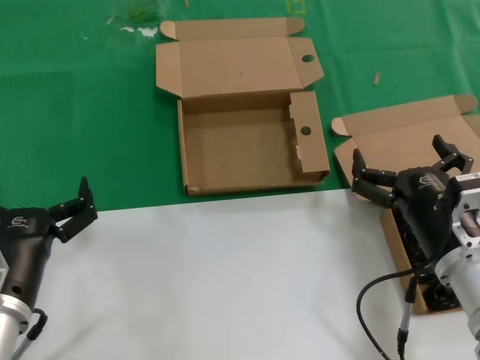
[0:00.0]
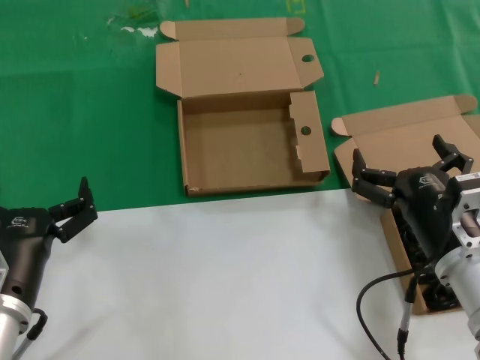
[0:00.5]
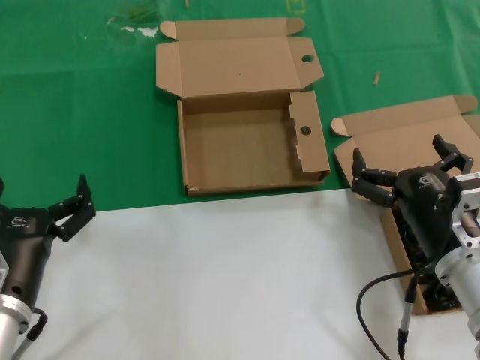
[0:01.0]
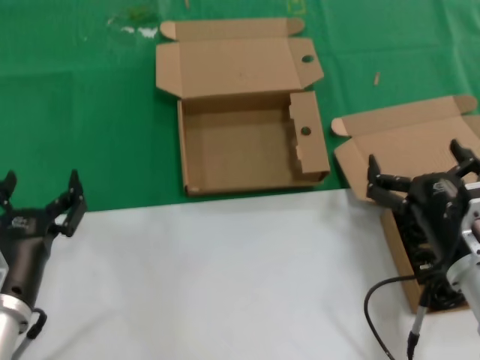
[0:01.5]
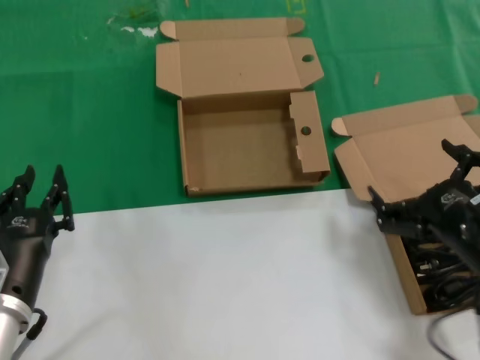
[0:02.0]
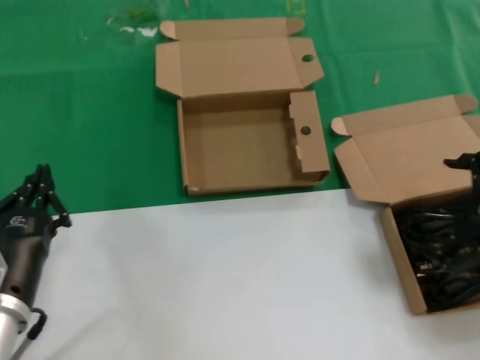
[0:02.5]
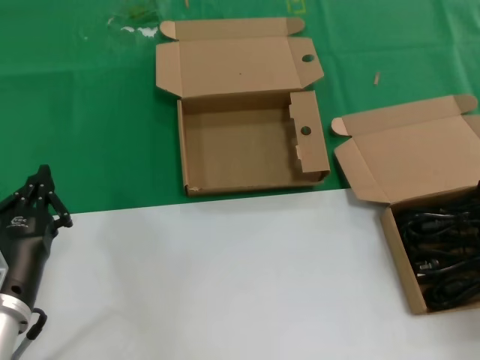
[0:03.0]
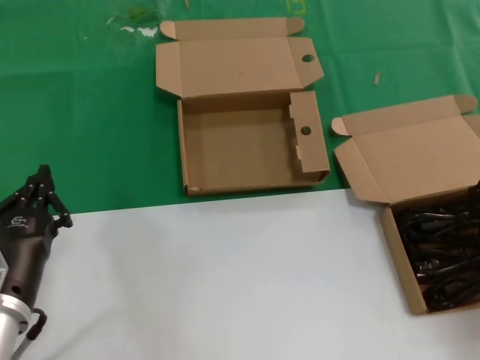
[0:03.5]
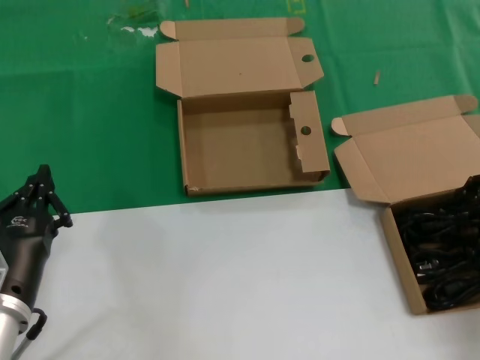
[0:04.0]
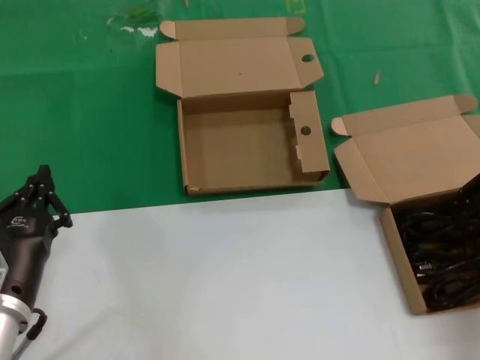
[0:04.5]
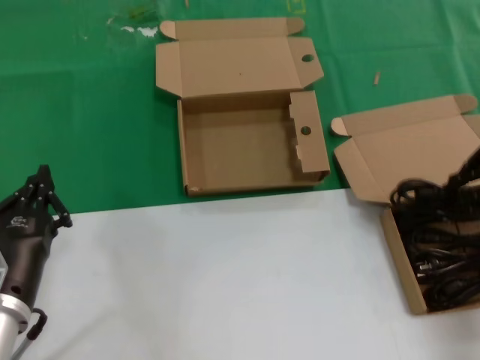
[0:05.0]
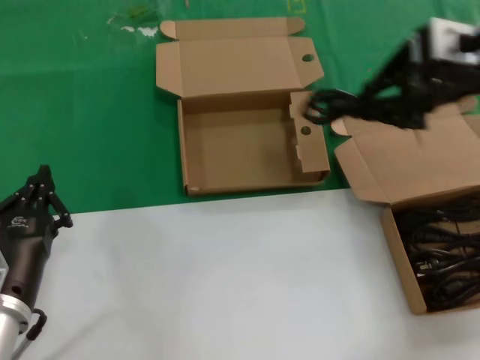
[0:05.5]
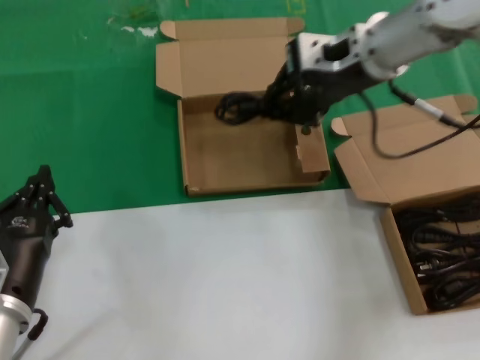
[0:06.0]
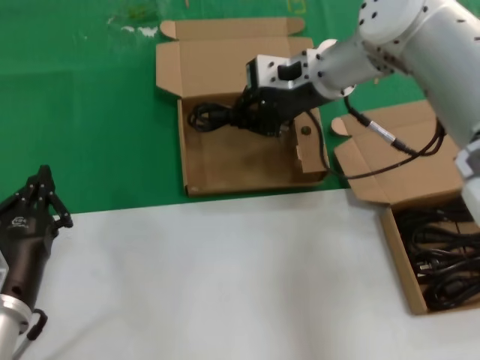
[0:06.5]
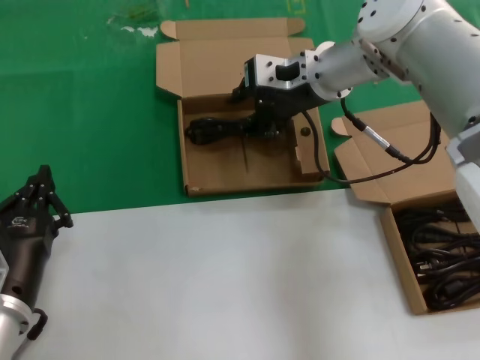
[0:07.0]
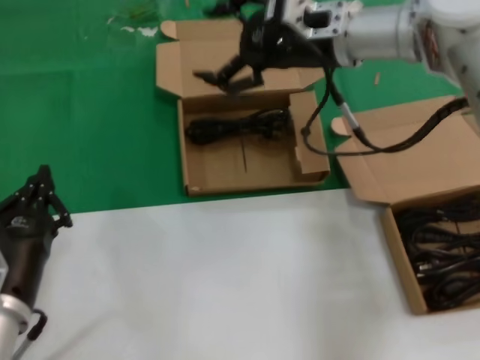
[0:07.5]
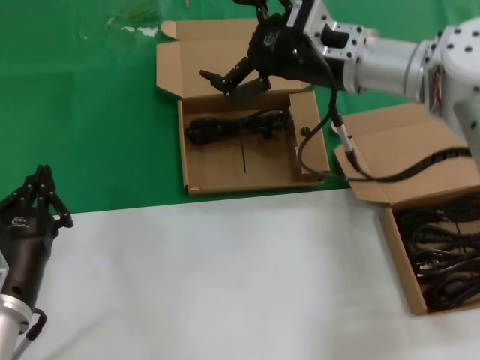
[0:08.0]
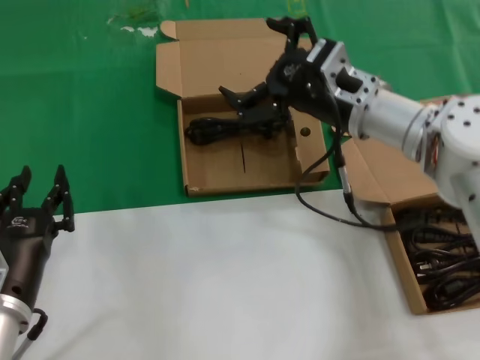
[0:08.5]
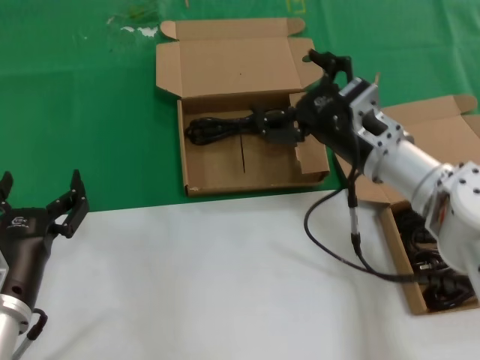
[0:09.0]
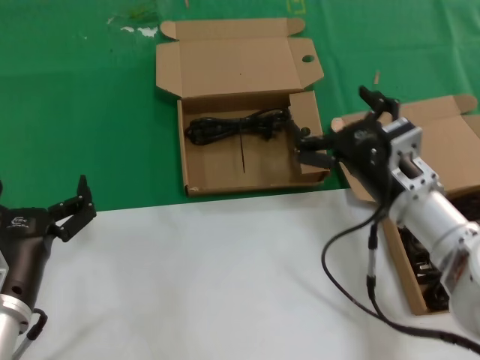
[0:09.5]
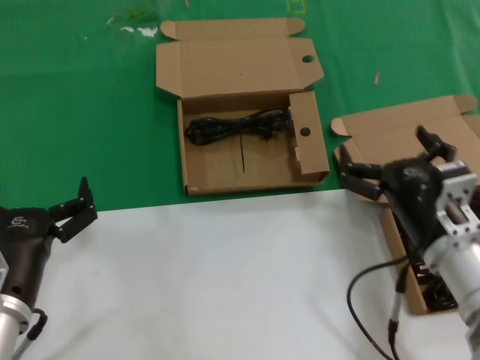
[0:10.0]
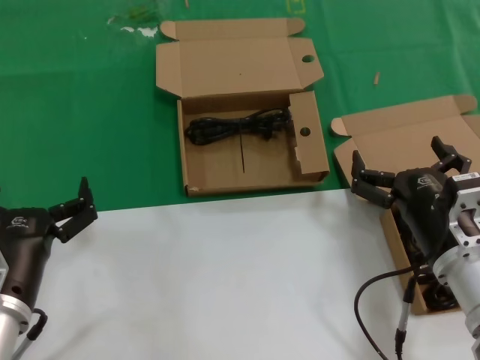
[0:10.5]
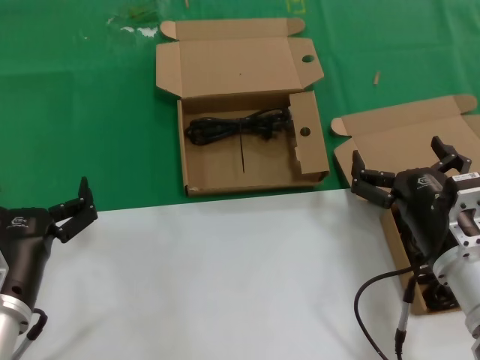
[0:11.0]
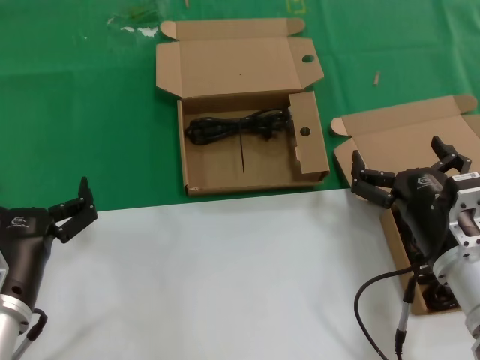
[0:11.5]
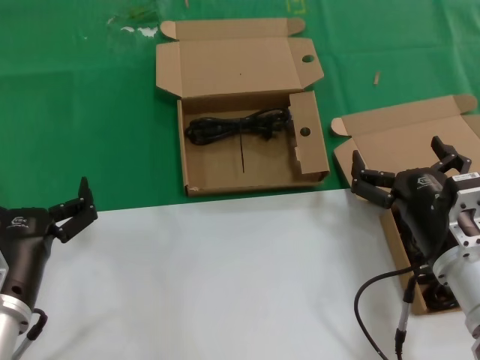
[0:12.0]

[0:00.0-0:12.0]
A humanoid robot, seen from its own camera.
Task of the whole recording: take the parts from the box containing them and put them into an empty box.
Step, 0:00.0 to 0:04.0: Grasp the data cable.
Step, 0:04.5 to 0:07.0: Place the data cable in the another box.
0:00.0 to 0:02.0: The right hand goes about 5 cm to the right.
0:02.0 to 0:04.0: The right hand moves upward, to the right and forward, roughly 20 cm.
0:04.0 to 0:06.0: The right hand shifts about 30 cm to the left, forward and upward.
0:06.0 to 0:08.0: The right hand travels downward by about 5 cm.
0:08.0 to 0:10.0: The right hand shifts approximately 25 cm backward and downward.
0:10.0 to 0:12.0: The hands move only a little.

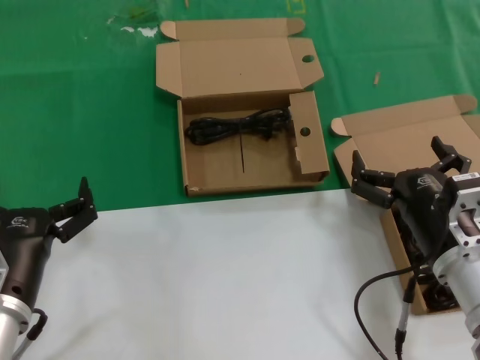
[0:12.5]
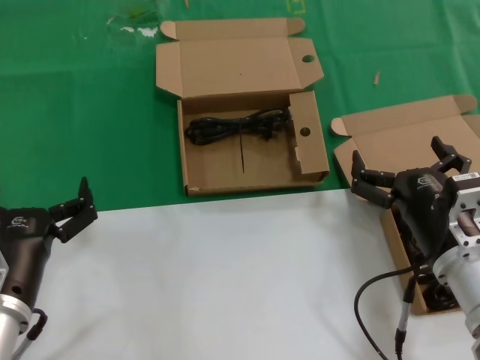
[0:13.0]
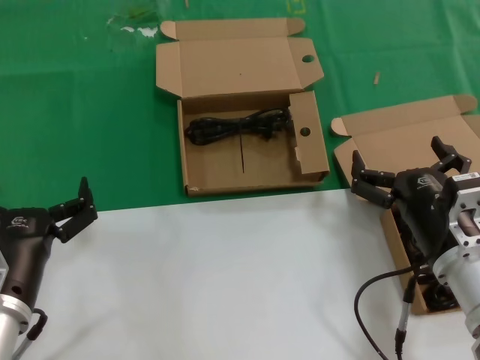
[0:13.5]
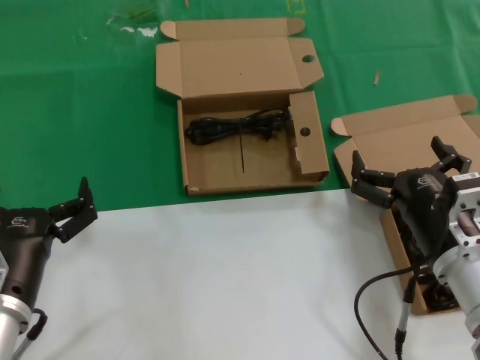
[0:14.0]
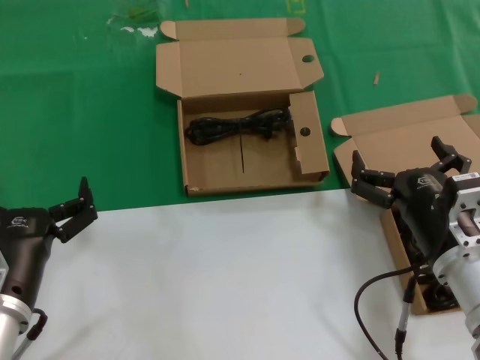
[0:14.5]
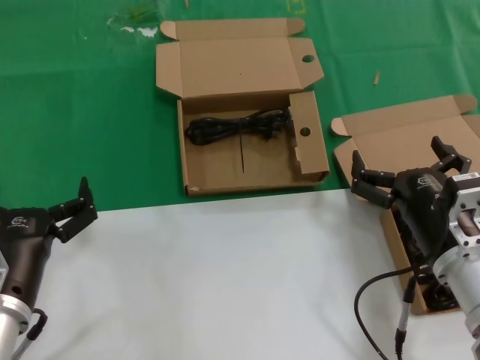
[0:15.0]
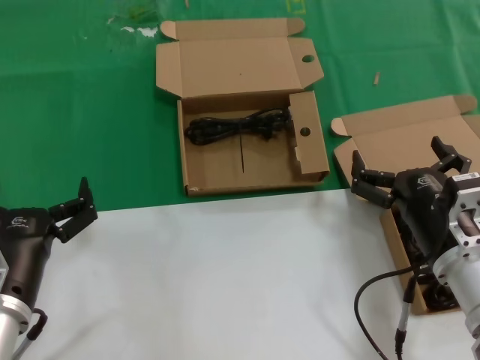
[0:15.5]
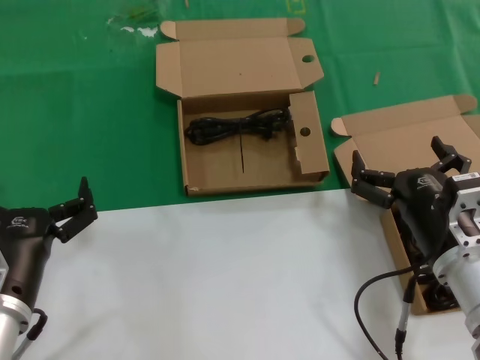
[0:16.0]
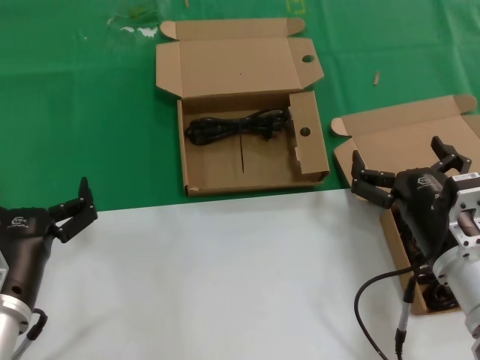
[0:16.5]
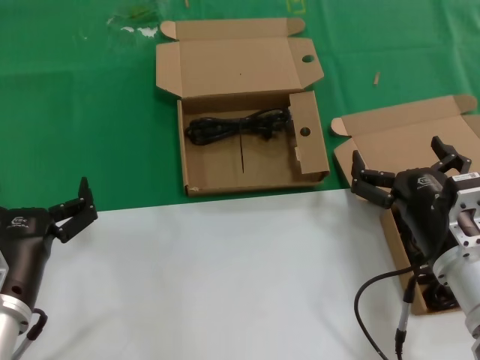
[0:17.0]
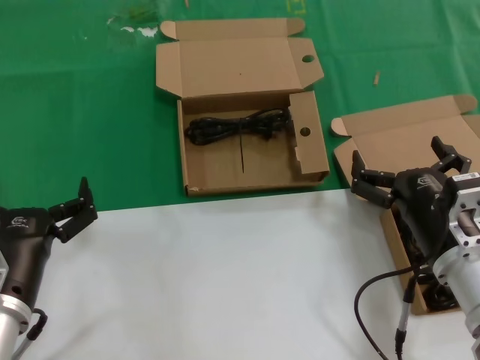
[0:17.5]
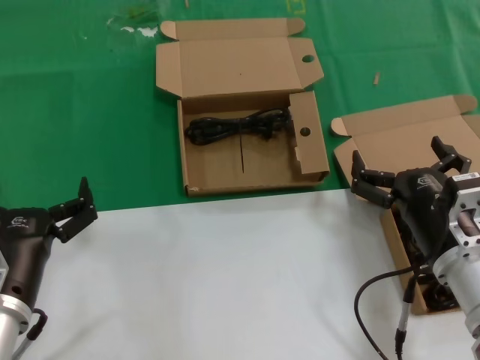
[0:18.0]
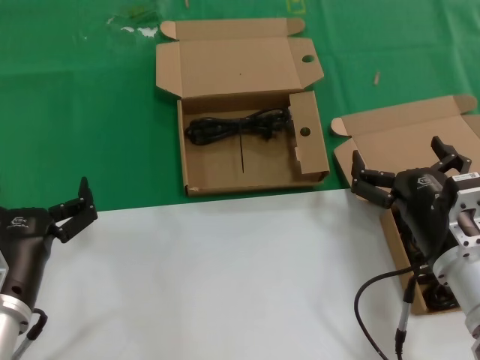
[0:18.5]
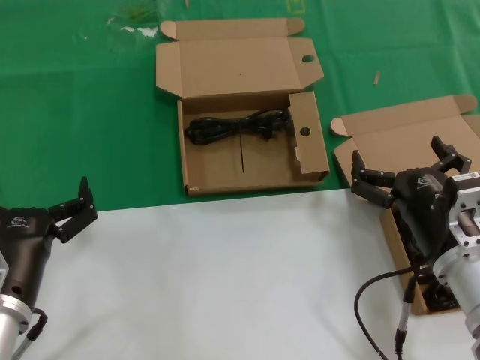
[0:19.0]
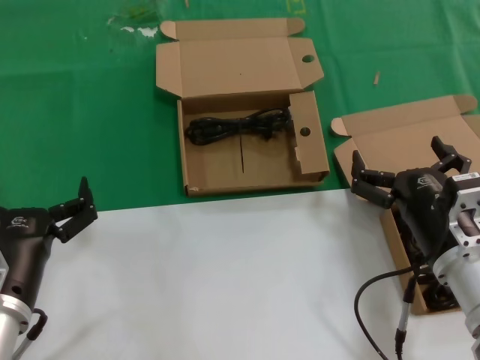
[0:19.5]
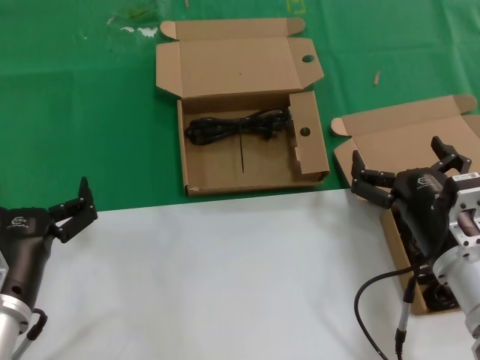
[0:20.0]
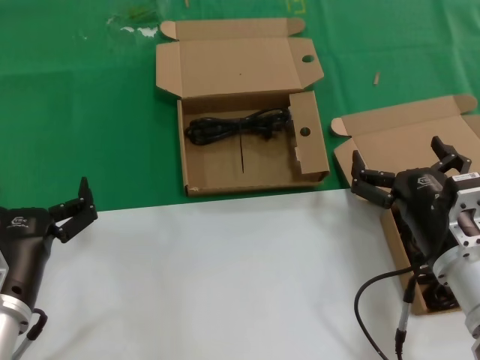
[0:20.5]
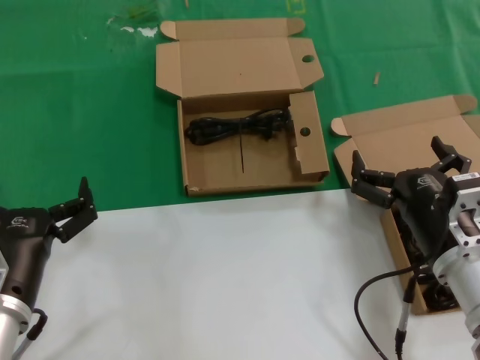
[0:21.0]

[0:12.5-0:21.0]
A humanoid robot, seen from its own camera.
Task of the whole recording: take the parts from the box containing them and put them into an empty box.
0:12.5 to 0:21.0: Both hands stay about where they are.

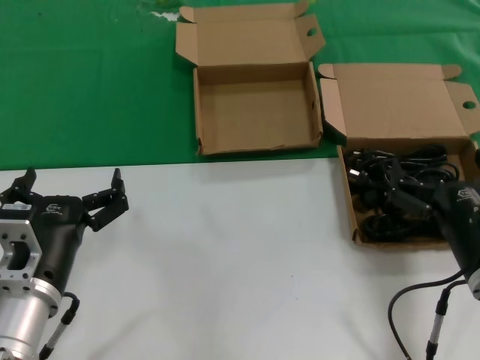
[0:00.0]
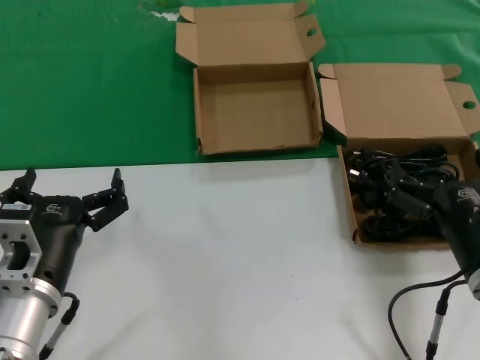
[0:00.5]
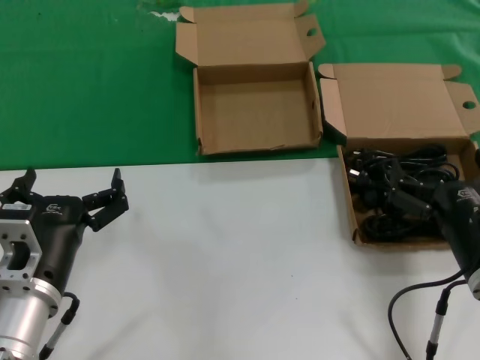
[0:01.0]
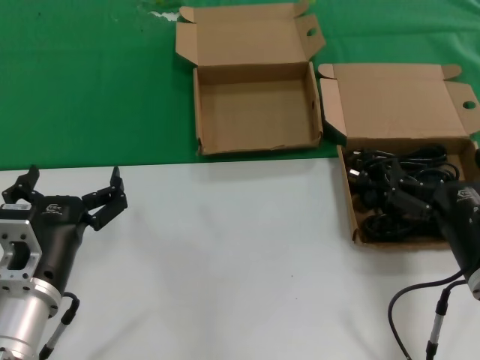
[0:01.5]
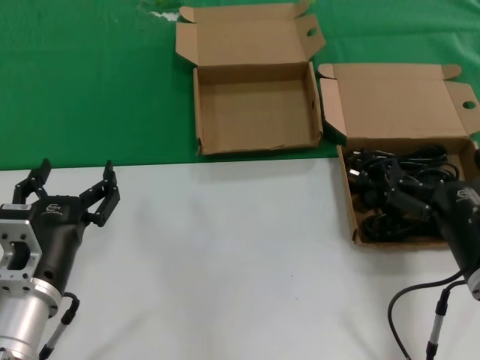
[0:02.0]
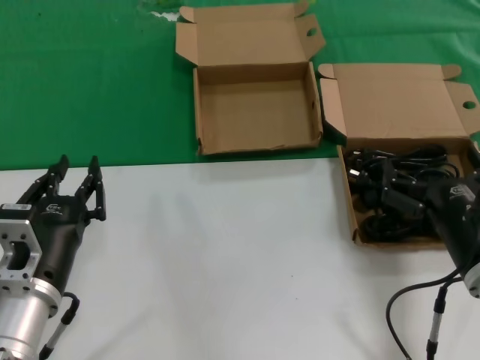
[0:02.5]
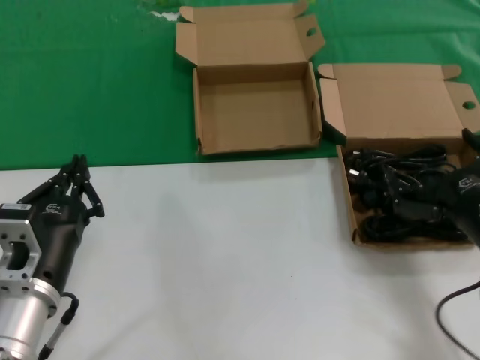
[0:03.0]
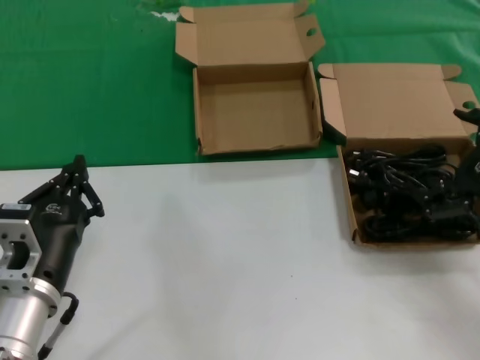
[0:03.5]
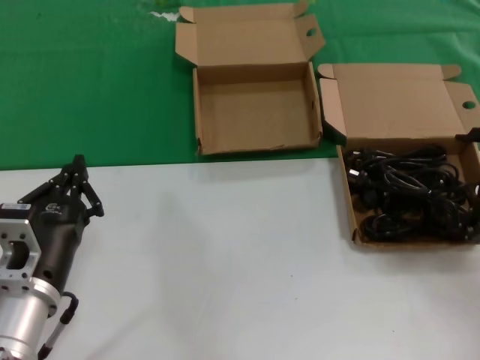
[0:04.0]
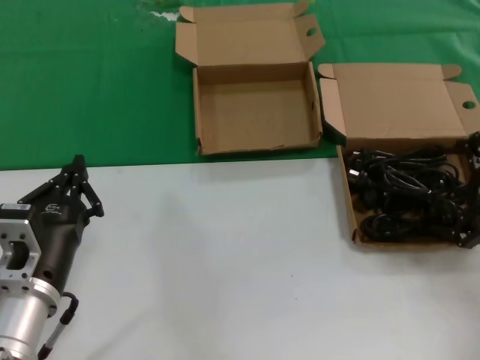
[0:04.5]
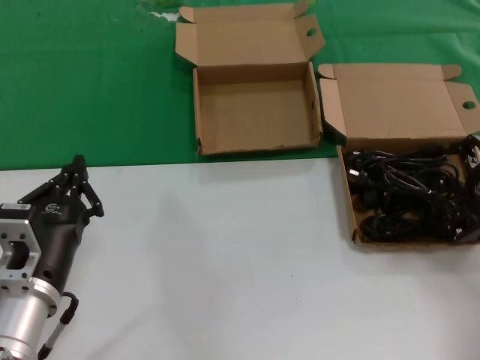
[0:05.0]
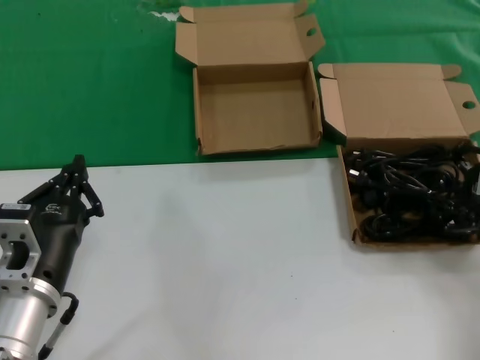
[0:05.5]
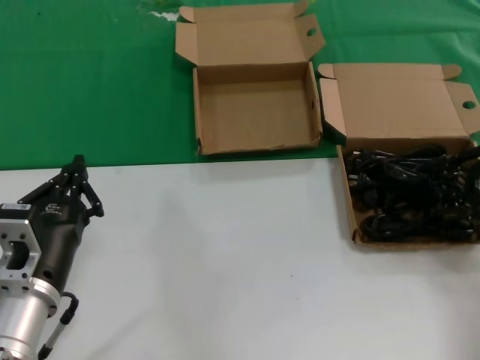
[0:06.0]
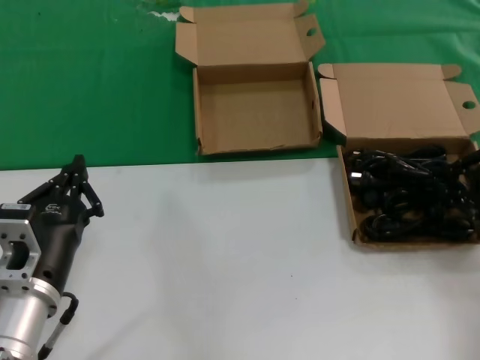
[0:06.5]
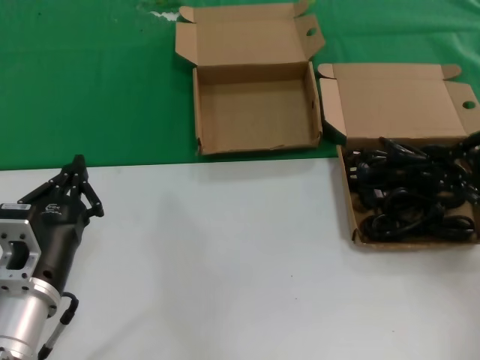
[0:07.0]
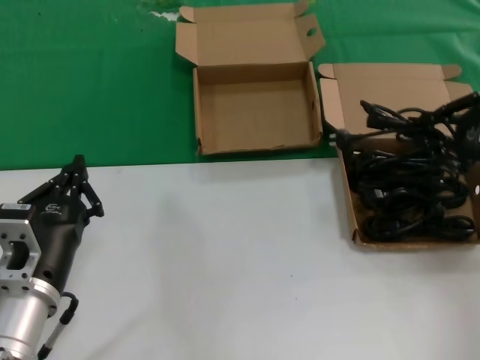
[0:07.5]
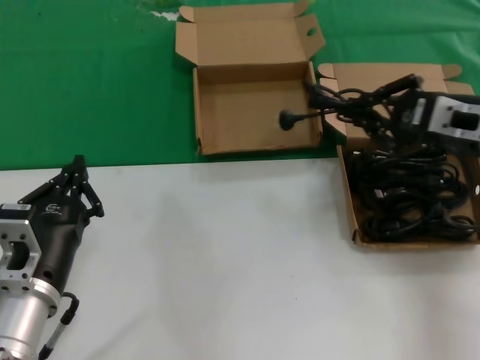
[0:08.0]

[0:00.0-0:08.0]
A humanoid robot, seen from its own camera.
Task of the whole recording: take the parts from the box containing them and put them into an empty box.
Step, 0:00.0 to 0:06.5: Grasp the data cable.
0:00.0 to 0:02.0: Both hands stay put.
0:02.0 to 0:04.0: The right hand travels to the right, upward and forward by approximately 20 cm.
0:04.0 to 0:06.0: The right hand ends up approximately 5 cm from where it was.
0:06.0 to 0:08.0: The right hand goes roughly 10 cm to the left and upward.
